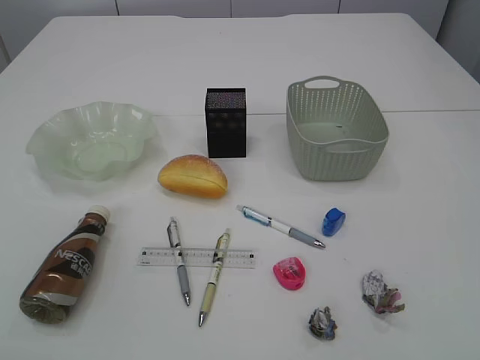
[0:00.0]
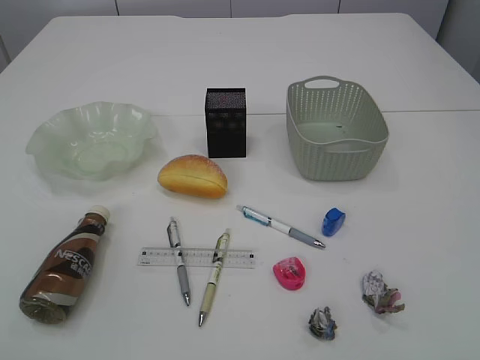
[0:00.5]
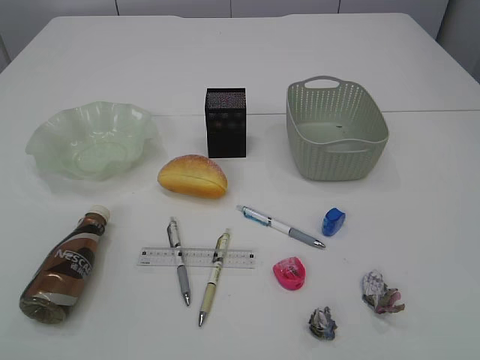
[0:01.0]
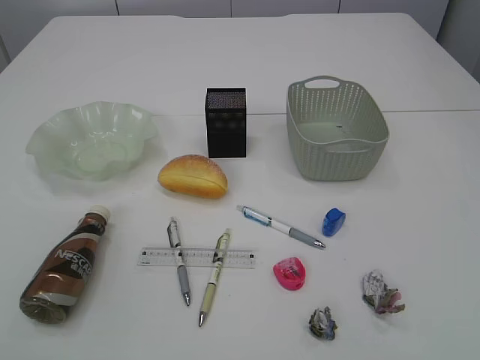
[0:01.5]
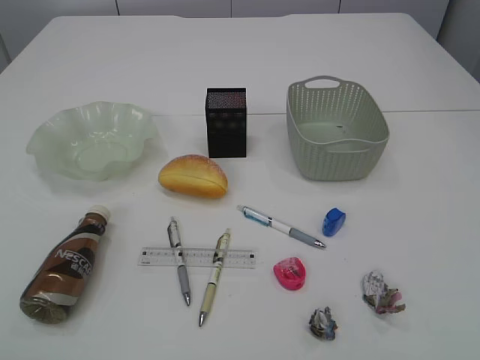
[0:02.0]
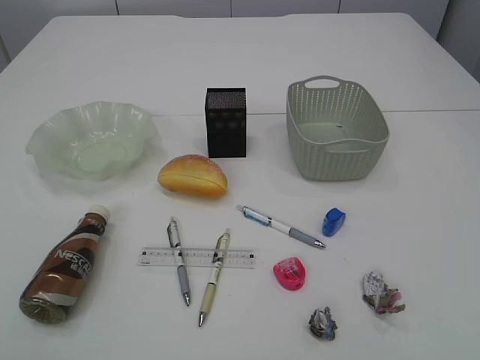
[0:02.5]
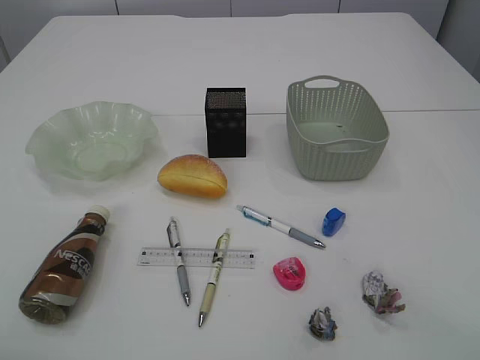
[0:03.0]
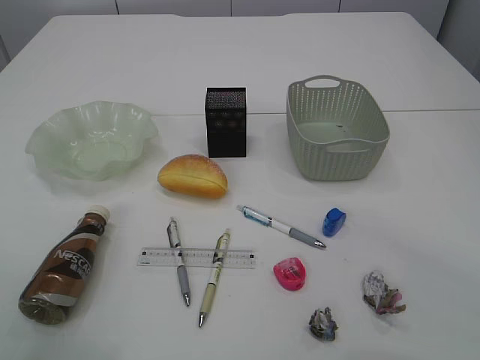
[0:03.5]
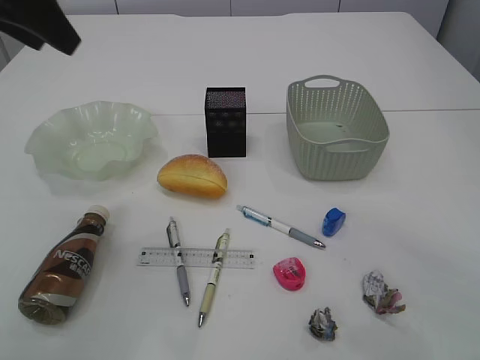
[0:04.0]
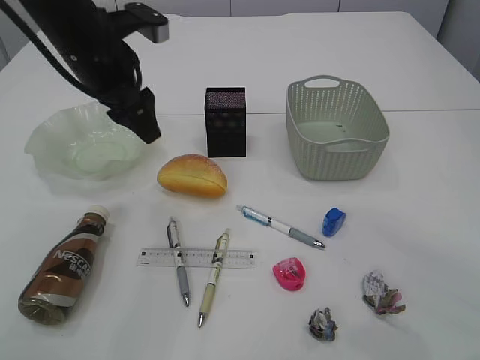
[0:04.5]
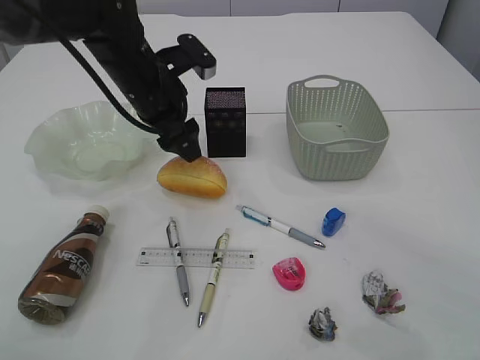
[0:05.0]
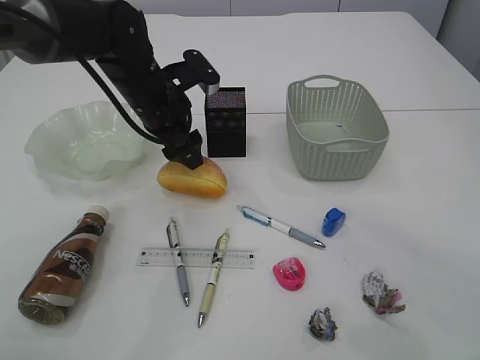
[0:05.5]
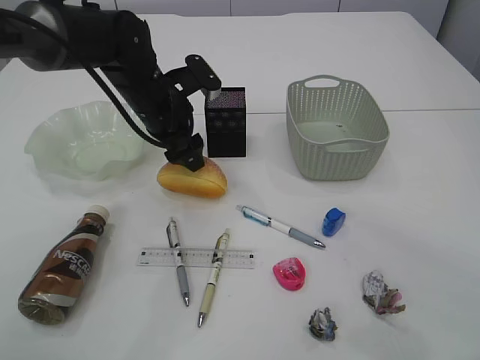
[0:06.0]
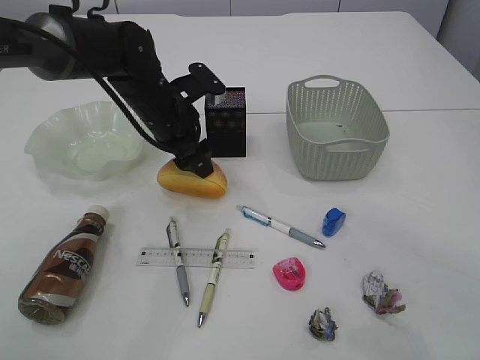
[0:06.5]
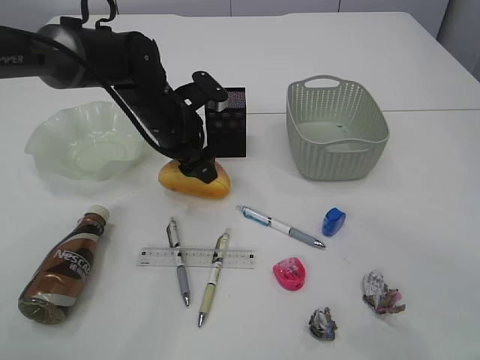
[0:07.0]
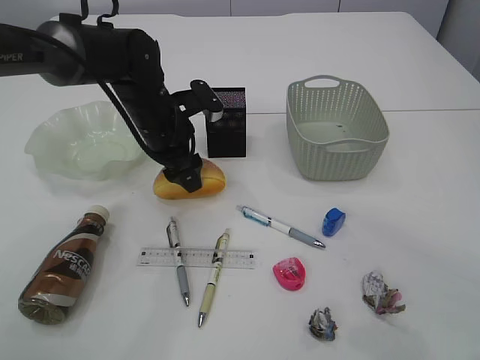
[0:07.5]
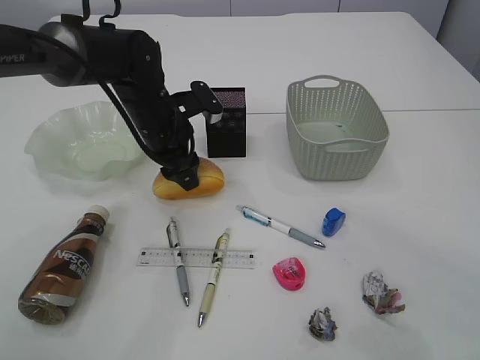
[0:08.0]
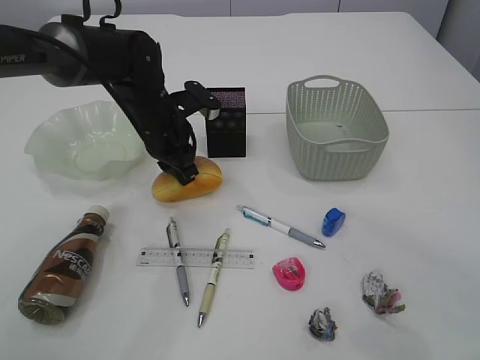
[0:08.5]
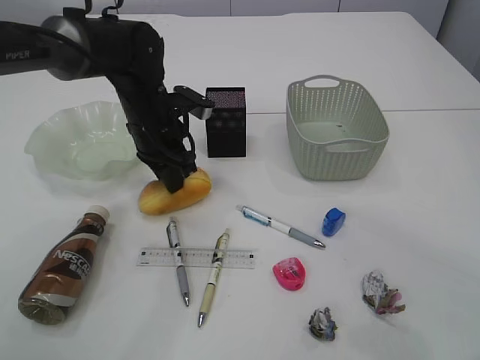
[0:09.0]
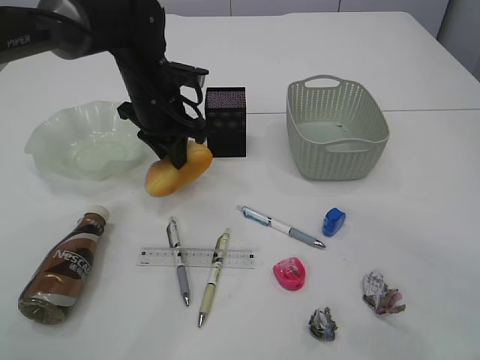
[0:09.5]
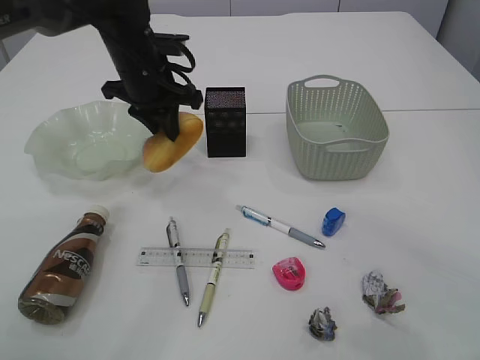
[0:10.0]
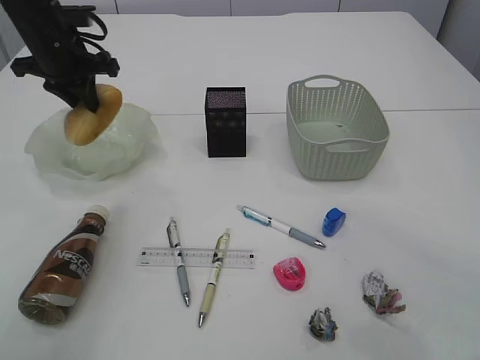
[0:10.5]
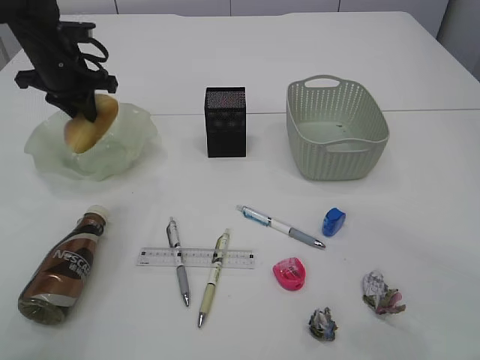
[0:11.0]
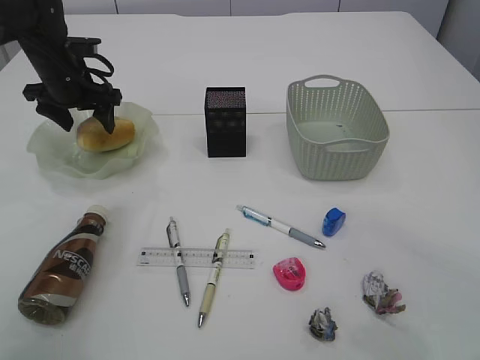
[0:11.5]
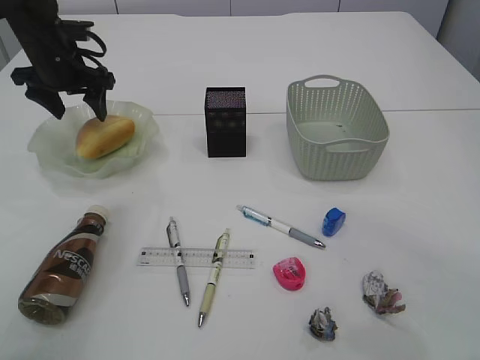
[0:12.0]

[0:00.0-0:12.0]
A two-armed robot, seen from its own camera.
0:02.0 to 0:04.0: The left gripper is displaced forward by some 35 cm.
0:04.0 to 0:06.0: The left gripper heads downward, to the right and forward, covering about 25 cm.
0:06.0 to 0:08.0: There are only small adjustments of the grippers.
0:08.0 to 0:10.0: The left gripper shifts roughly 5 cm upward, and closes.
0:10.0 to 0:12.0: The left gripper is displaced to the left by about 15 cm, and opens.

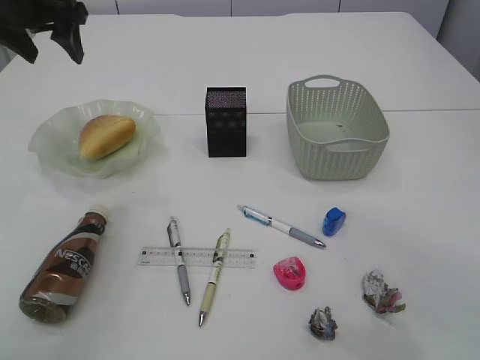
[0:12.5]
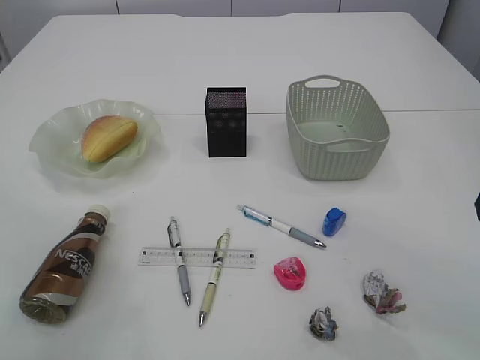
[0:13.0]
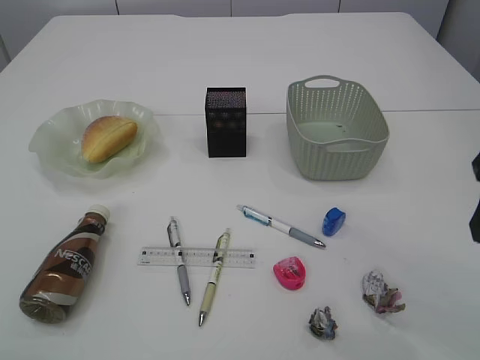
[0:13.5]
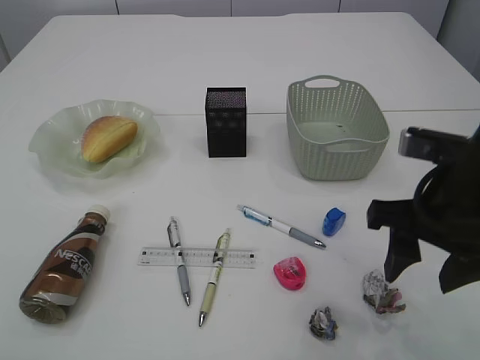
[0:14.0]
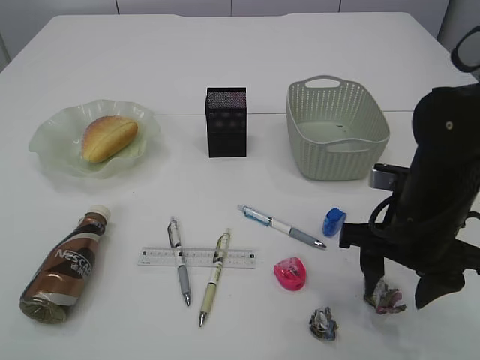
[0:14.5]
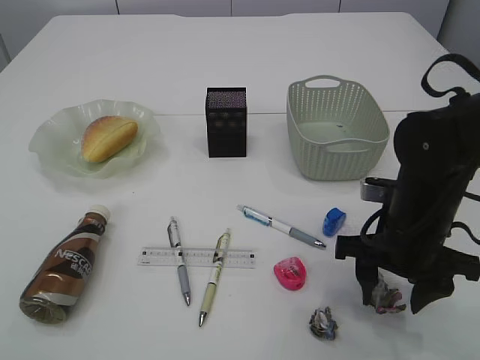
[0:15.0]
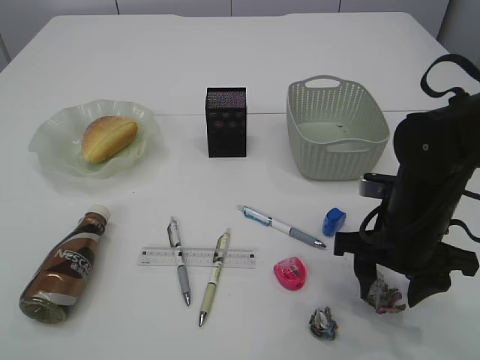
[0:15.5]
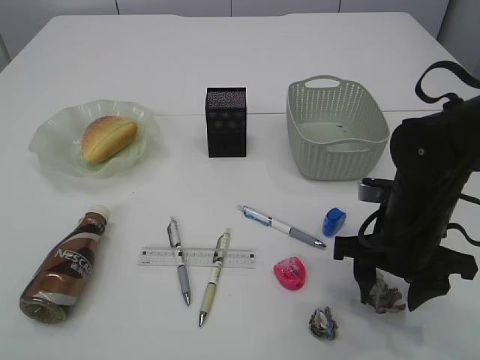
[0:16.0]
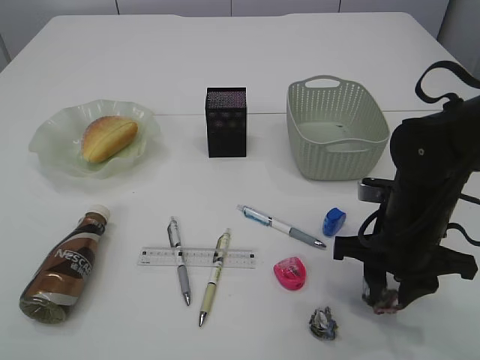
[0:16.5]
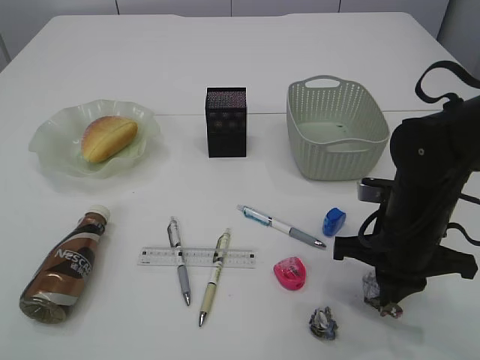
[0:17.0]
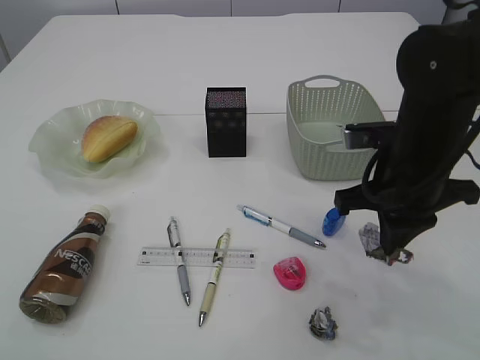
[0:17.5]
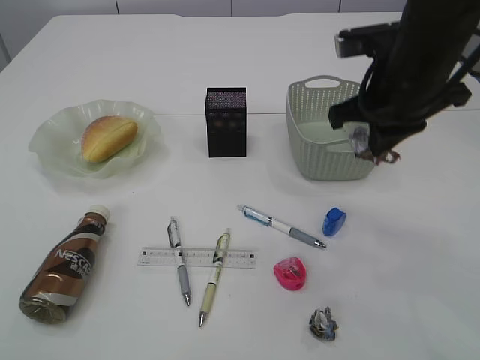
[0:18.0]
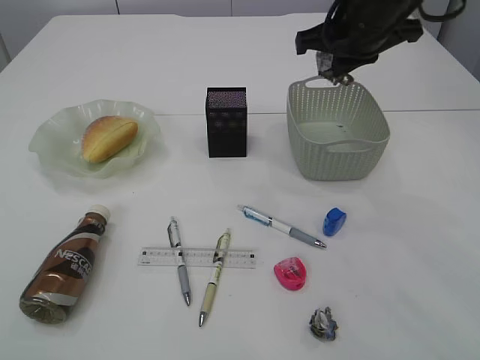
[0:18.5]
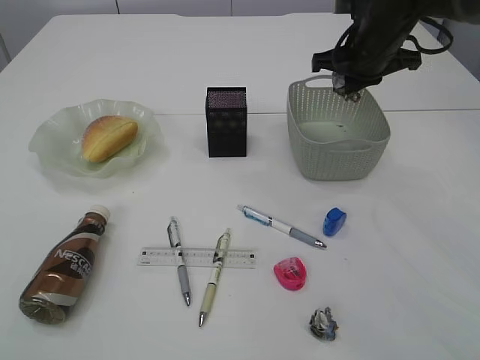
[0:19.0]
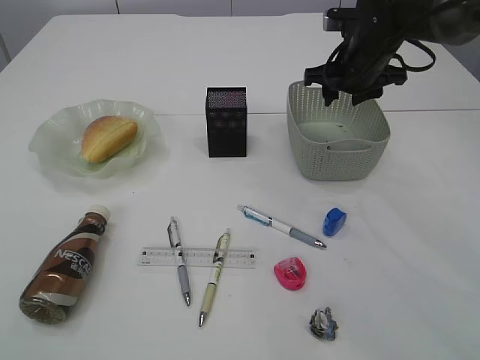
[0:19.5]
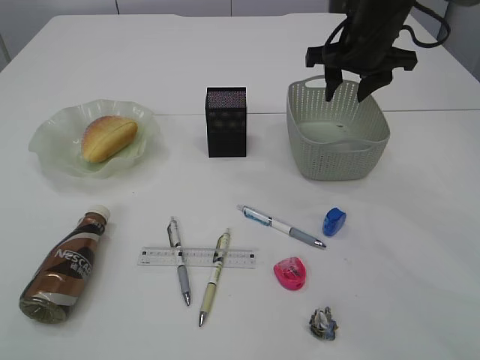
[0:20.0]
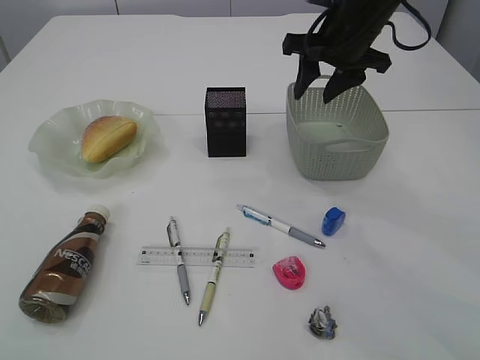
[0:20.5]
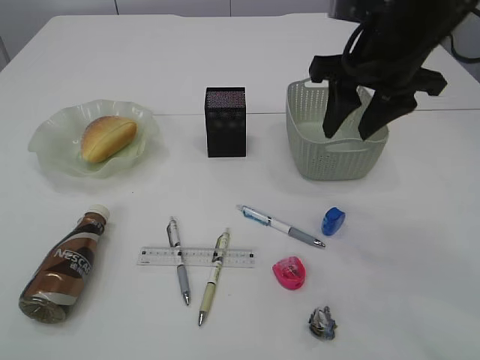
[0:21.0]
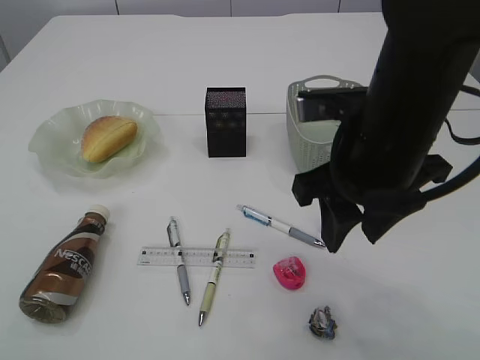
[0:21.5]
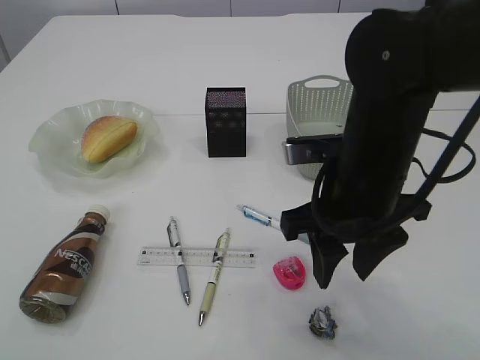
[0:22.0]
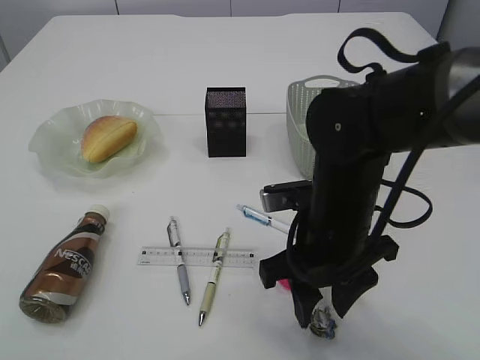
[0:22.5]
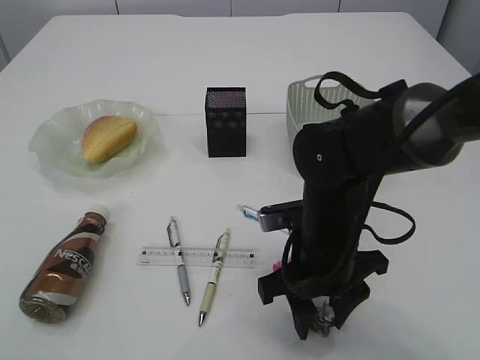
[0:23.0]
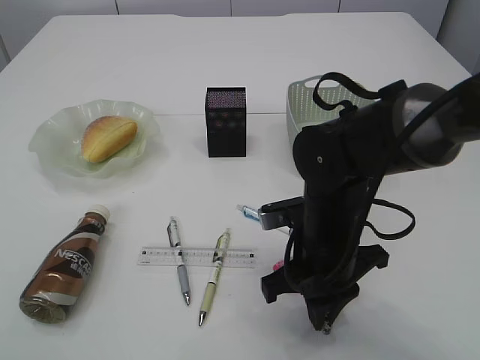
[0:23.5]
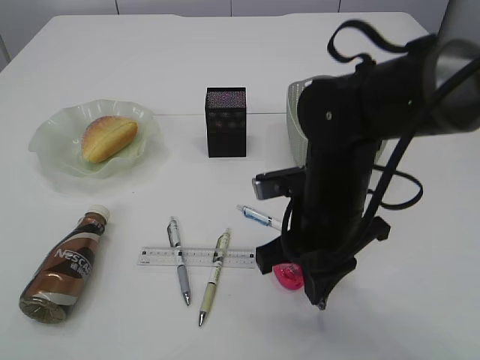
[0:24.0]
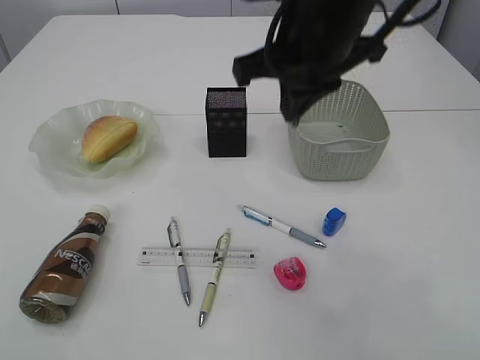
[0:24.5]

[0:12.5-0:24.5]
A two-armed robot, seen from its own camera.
Step, 0:12.5 to 0:17.5: Pick up the waste paper.
Step, 0:18.0 to 0:20.5: Place the waste paper in the basket.
Step, 0:21.0 to 0:24.0: Pick up the waste paper.
0:12.5 to 0:14.5: The left gripper shifts some 35 cm backward; the right gripper is displaced downward and to the left by some 15 cm.
0:14.5 to 0:16.5: There are only small adjustments of the grippers.
0:16.5 to 0:18.5: The right gripper travels upward and forward by approximately 20 cm, and closes its fingers.
0:18.5 to 0:20.5: The right gripper travels forward by roughly 5 cm, goes downward and returns, about 10 cm each way, and opens up.
0:20.5 to 0:22.5: The right gripper heads backward and downward, covering about 25 cm.
0:22.5 to 0:24.5: The right gripper is displaced upward by about 15 cm, and closes its fingers.

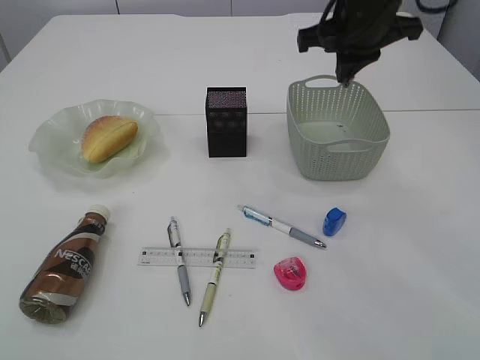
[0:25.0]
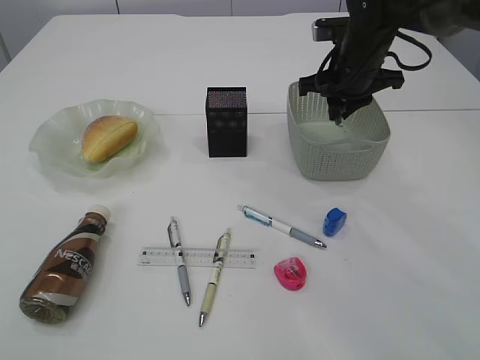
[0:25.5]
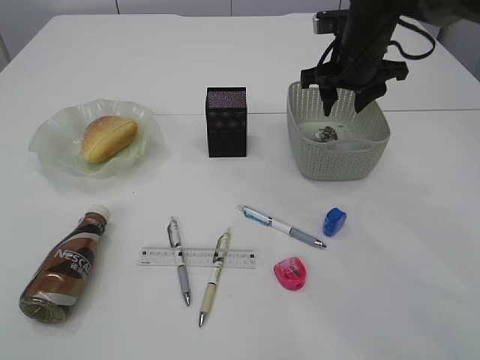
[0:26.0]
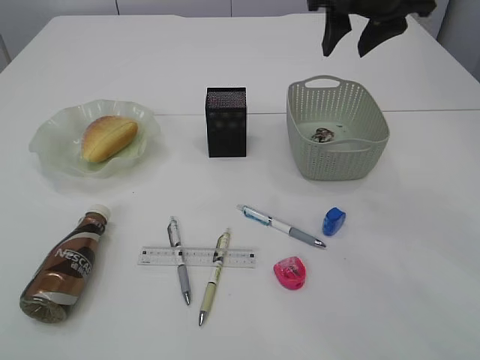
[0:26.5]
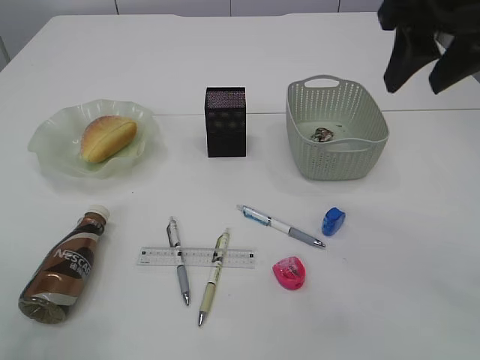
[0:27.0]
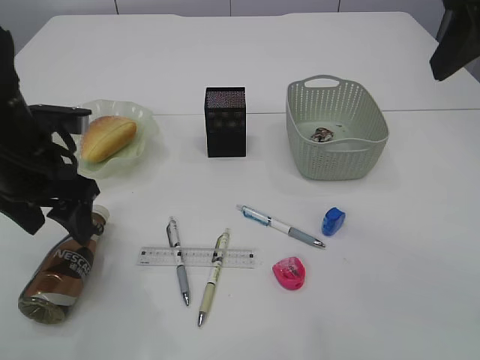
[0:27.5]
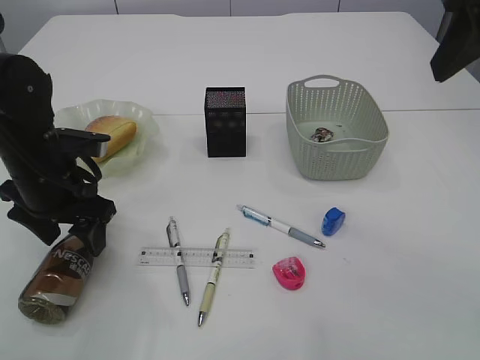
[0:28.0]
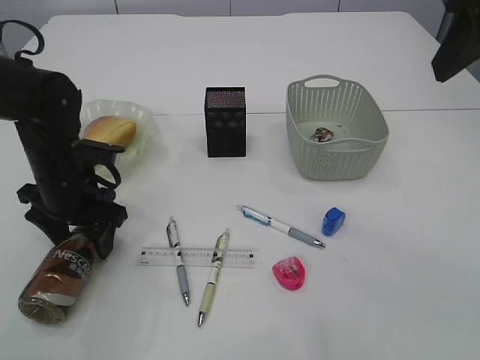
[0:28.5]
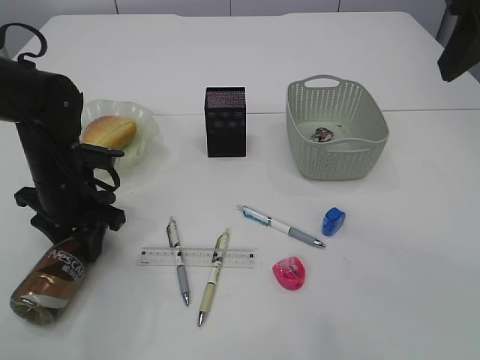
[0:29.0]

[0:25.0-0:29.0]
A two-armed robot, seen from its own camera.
Step, 0:25.0 to 0:26.0: Place the waste paper in the basket.
0:25.0 to 0:27.0: The left gripper moves forward and downward, about 15 cm; the right gripper is displaced backward and upward by some 15 cm, and opens up.
0:27.0 to 0:29.0: The left gripper travels downward and forward by roughly 25 cm, and closes. The right gripper travels backward by roughly 5 cm.
